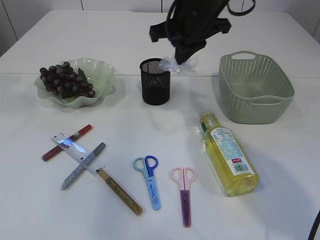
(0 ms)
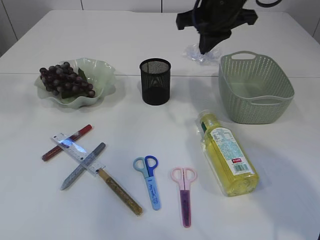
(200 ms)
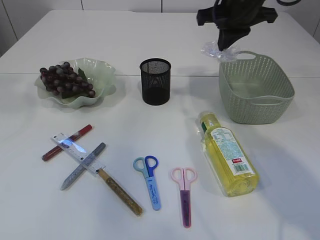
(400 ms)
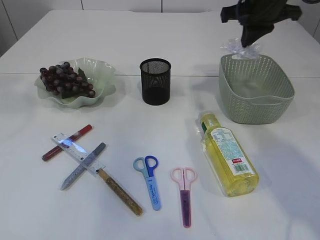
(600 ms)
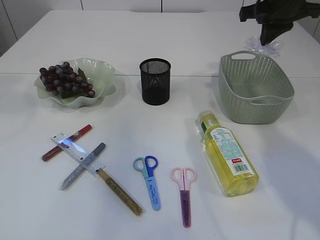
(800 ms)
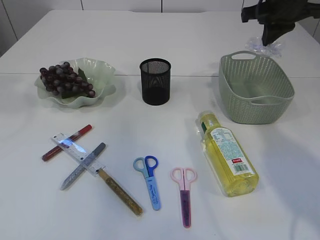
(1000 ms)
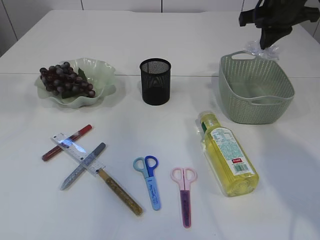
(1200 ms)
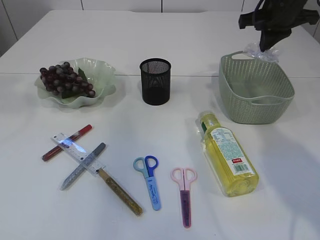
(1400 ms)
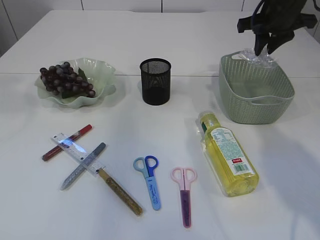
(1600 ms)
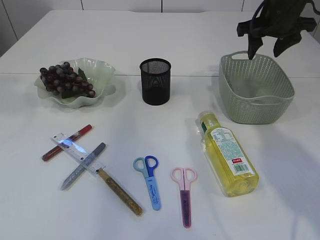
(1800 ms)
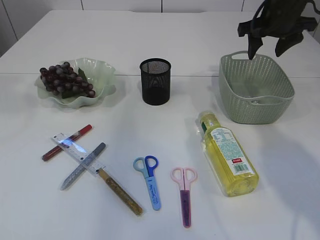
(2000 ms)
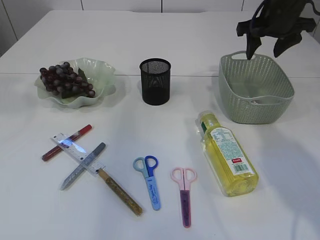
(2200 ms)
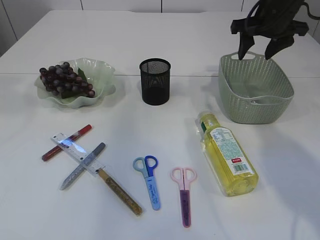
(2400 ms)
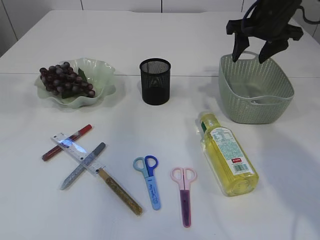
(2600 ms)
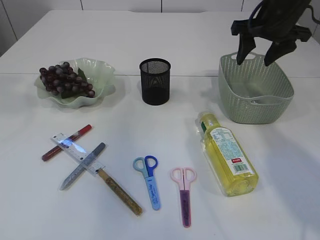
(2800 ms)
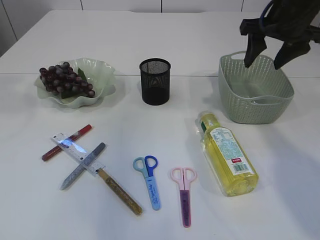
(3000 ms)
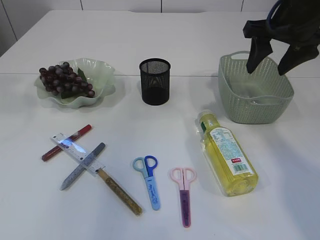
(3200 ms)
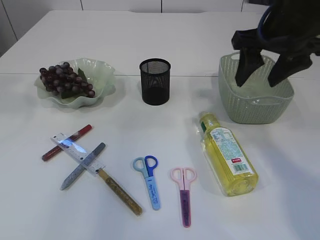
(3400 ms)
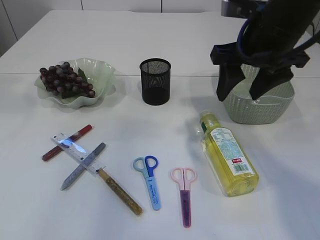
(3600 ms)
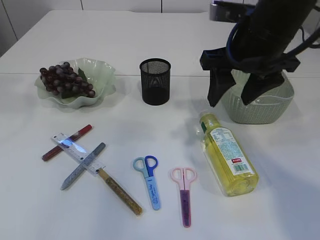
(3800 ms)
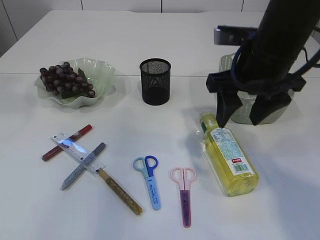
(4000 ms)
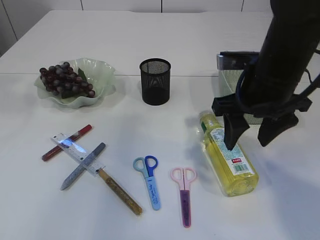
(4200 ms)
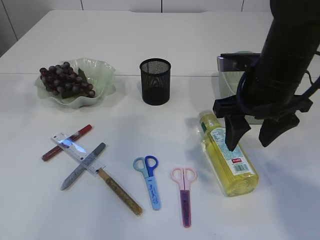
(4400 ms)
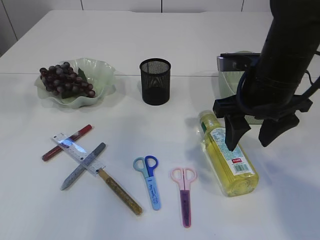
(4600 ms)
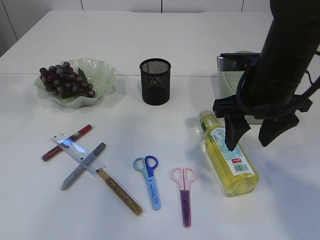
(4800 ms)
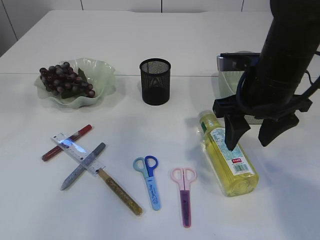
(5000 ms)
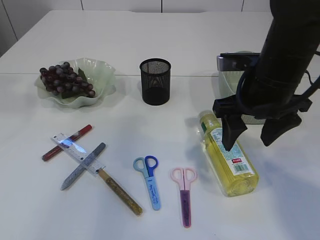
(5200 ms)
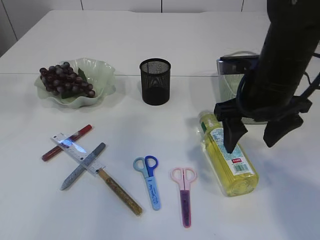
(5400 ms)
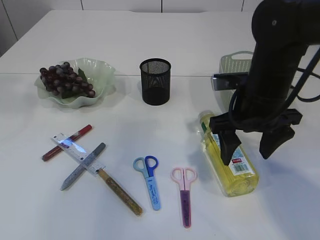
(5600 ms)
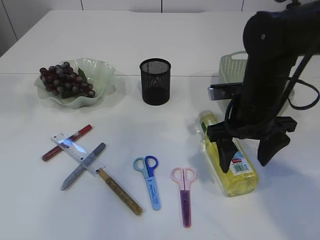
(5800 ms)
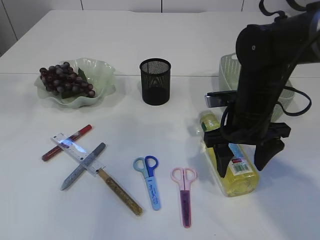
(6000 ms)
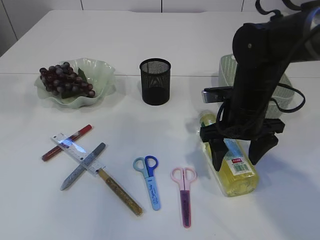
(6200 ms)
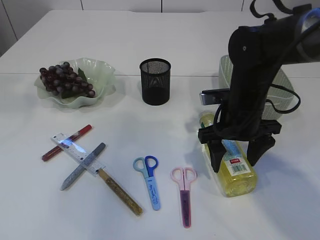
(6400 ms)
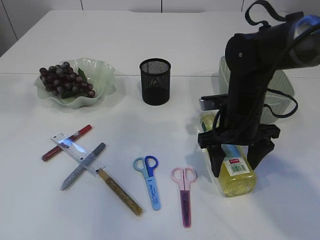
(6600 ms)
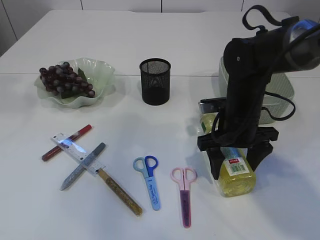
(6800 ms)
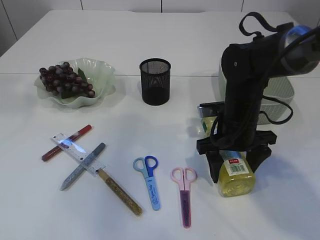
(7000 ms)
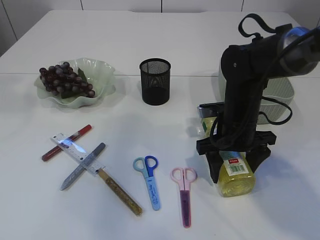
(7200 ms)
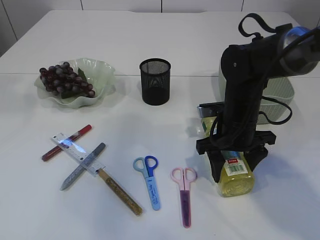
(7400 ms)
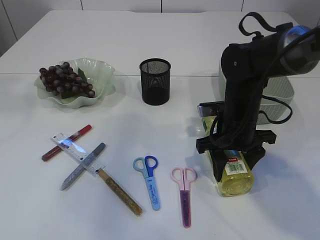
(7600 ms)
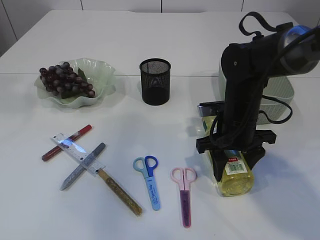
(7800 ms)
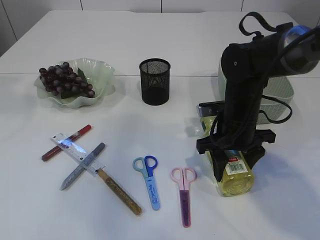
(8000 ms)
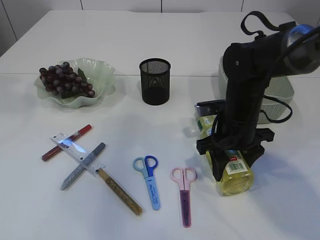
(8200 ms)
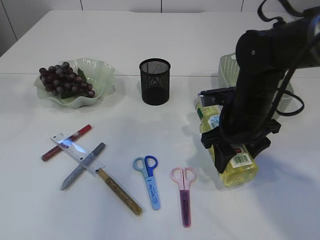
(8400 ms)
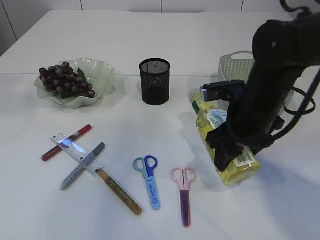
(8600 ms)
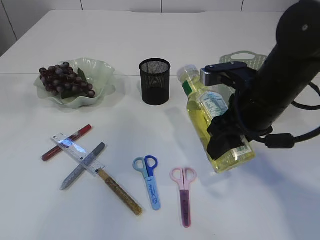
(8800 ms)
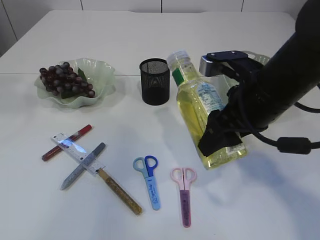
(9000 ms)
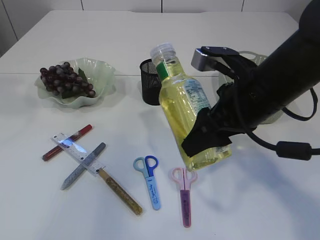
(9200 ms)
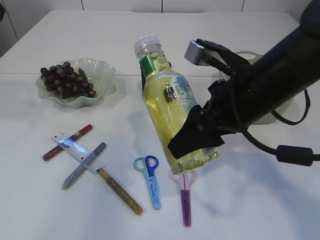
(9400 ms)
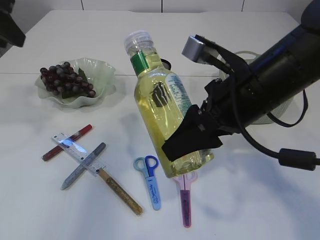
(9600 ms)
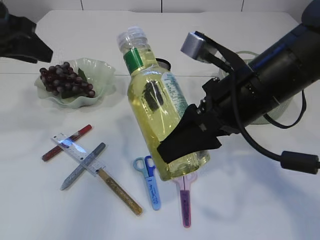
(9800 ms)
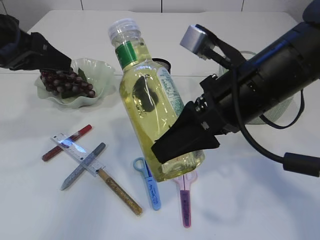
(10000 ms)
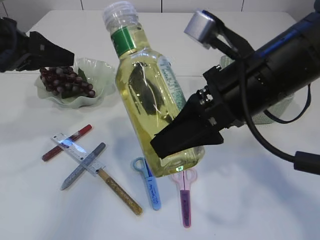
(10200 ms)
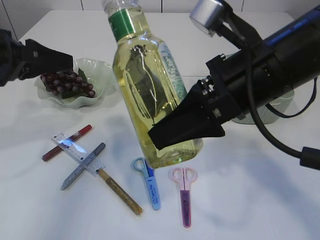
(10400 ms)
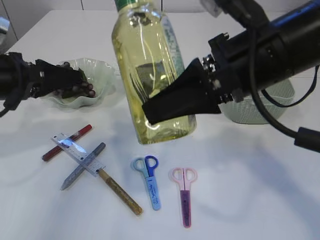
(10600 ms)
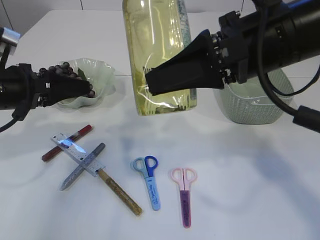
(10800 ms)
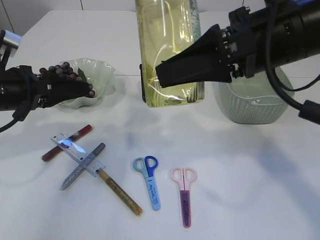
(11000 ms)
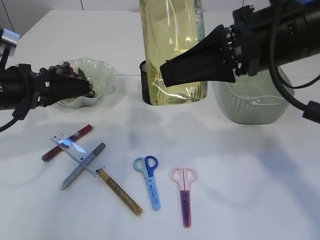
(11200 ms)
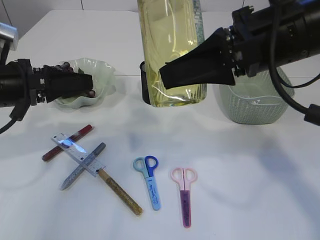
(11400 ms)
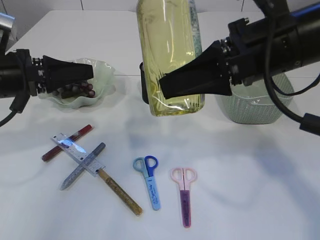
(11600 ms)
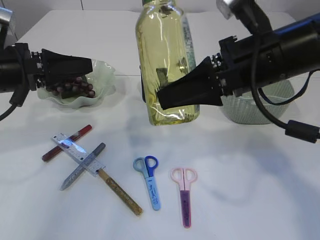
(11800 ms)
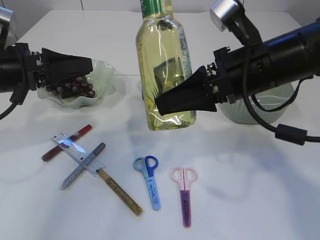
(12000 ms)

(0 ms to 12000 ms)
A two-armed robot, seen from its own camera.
Step, 0 ms - 2000 ms: Place the plastic in the basket.
Step, 2200 ms - 9000 ms: Pick up the bottle with the right arm.
0 ms - 1600 ms: The right gripper goes some 15 cm to the right.
1600 ms - 3000 ms: The right gripper moves backward, about 5 cm, and opens its fingers.
3000 ms - 4400 ms: The left gripper opens its fingers; the right gripper heads backward, to the left and downward, covering roughly 15 cm.
4400 ms - 6000 ms: The right gripper goes approximately 5 cm downward.
6000 ms - 7600 ms: The grippers stay close to where they were, moving slightly.
7600 ms - 9000 ms: The right gripper travels upward and backward by approximately 10 cm.
9000 ms - 10400 ms: The left gripper heads downward, covering roughly 20 cm, while the right gripper shifts roughly 5 cm upward.
10400 ms - 12000 ms: The right gripper travels forward by some 5 cm.

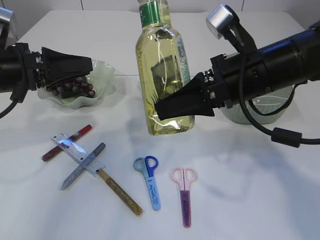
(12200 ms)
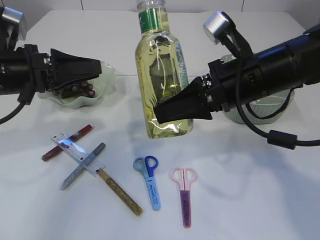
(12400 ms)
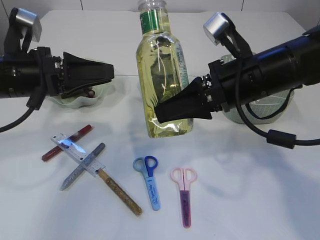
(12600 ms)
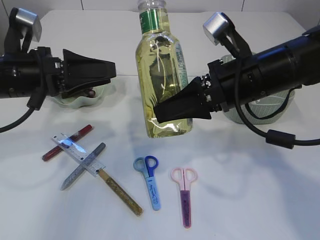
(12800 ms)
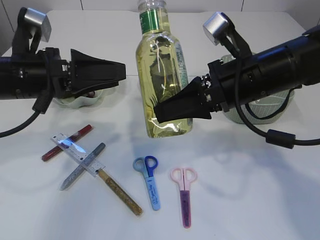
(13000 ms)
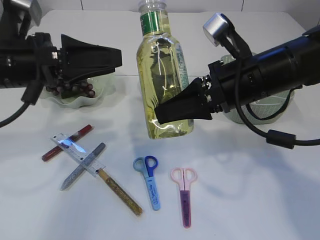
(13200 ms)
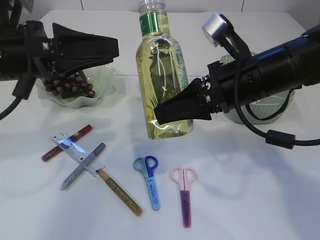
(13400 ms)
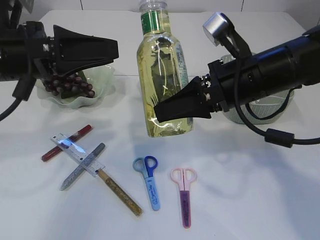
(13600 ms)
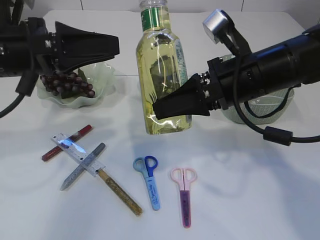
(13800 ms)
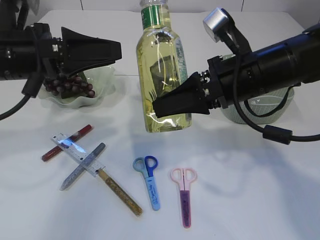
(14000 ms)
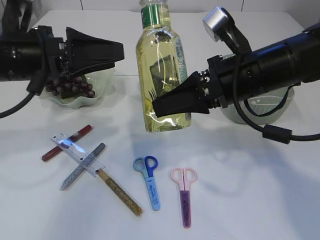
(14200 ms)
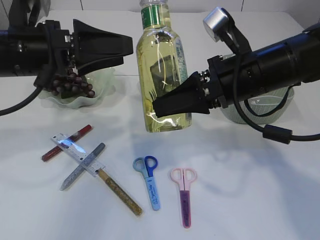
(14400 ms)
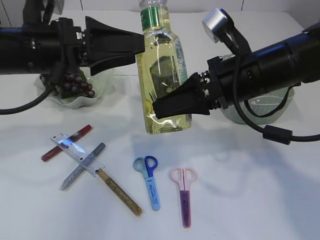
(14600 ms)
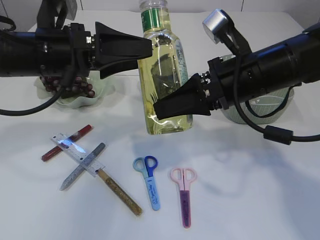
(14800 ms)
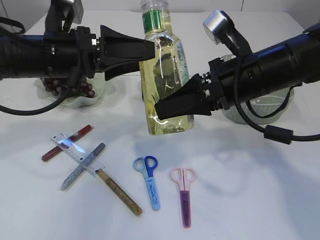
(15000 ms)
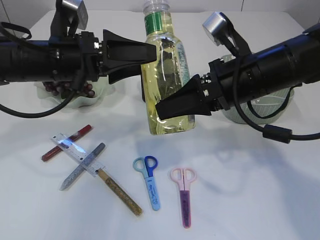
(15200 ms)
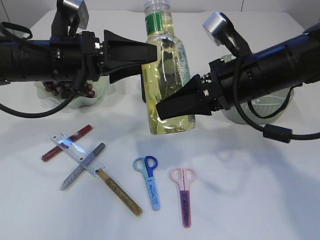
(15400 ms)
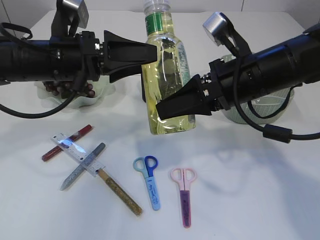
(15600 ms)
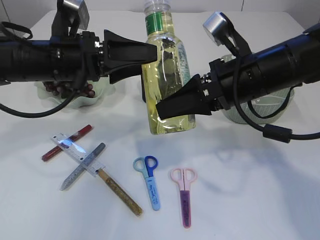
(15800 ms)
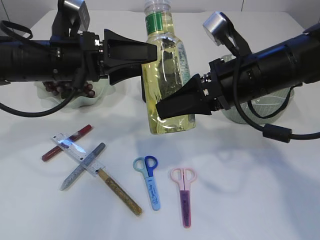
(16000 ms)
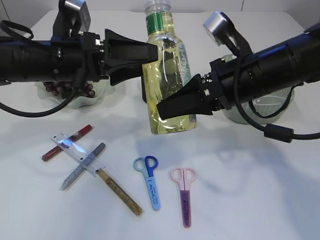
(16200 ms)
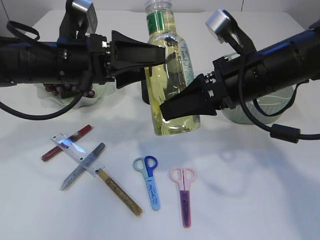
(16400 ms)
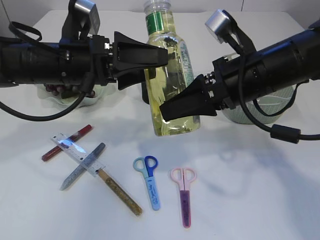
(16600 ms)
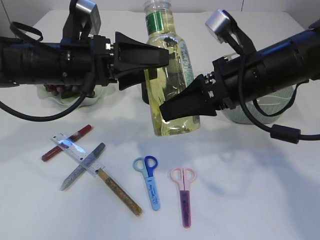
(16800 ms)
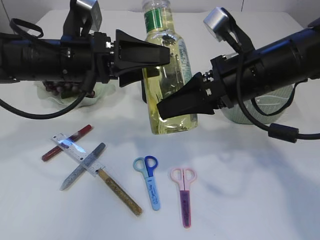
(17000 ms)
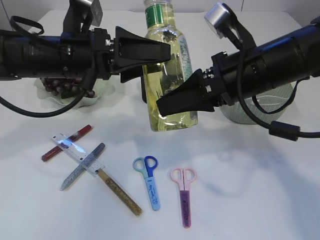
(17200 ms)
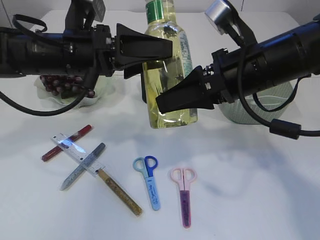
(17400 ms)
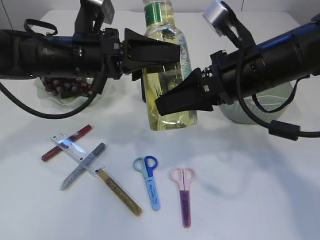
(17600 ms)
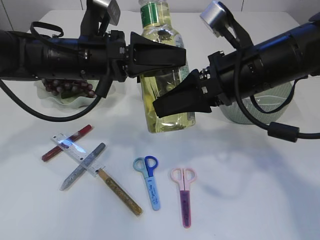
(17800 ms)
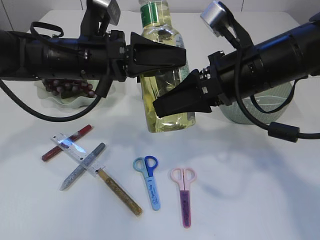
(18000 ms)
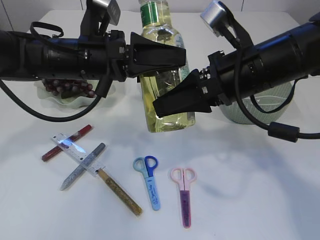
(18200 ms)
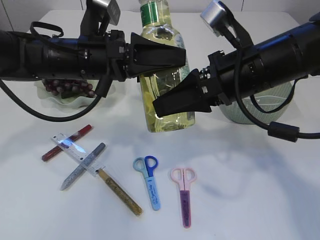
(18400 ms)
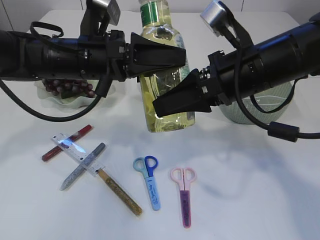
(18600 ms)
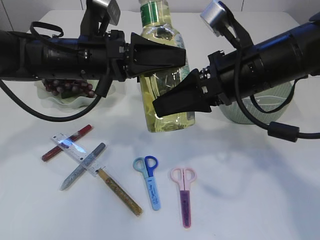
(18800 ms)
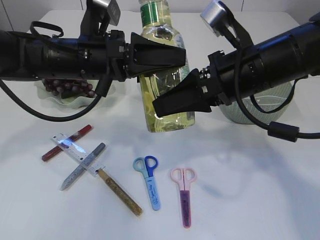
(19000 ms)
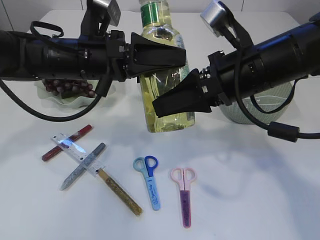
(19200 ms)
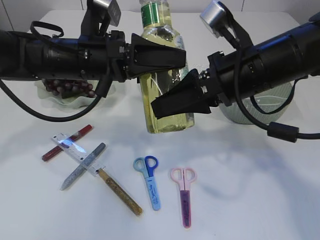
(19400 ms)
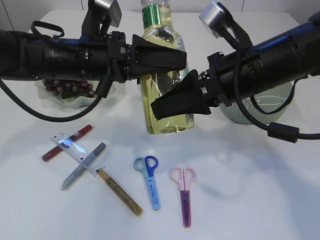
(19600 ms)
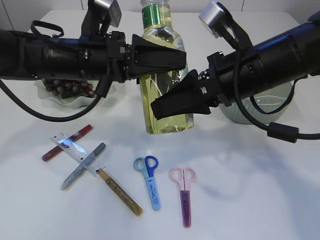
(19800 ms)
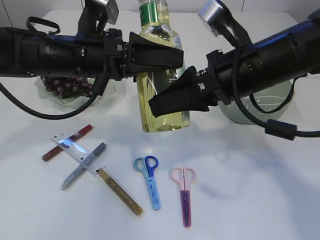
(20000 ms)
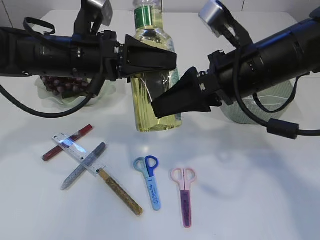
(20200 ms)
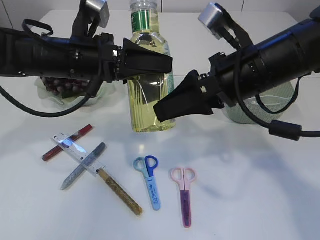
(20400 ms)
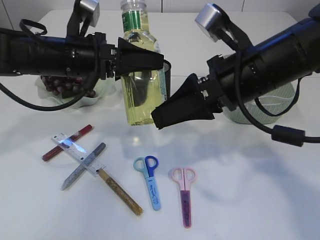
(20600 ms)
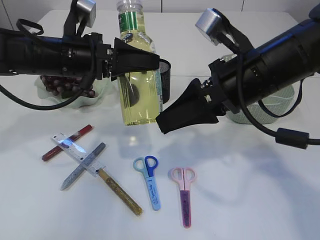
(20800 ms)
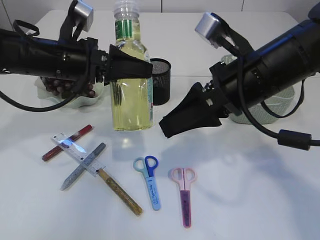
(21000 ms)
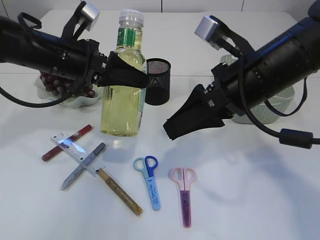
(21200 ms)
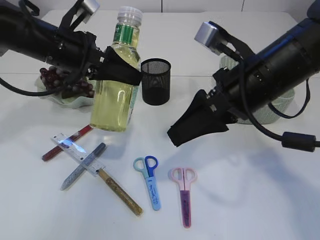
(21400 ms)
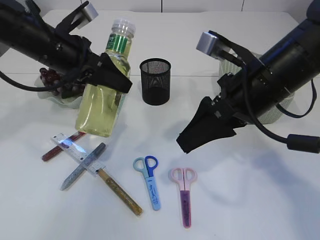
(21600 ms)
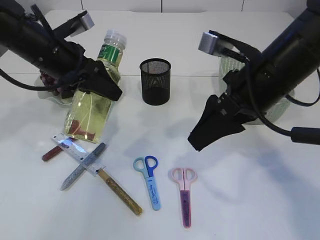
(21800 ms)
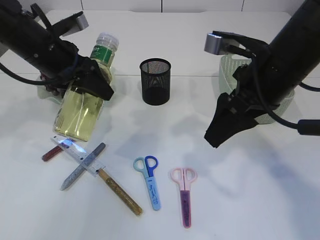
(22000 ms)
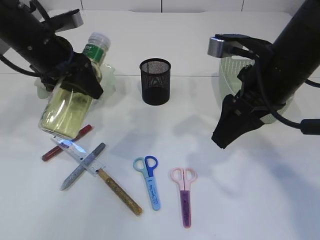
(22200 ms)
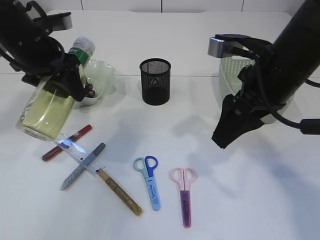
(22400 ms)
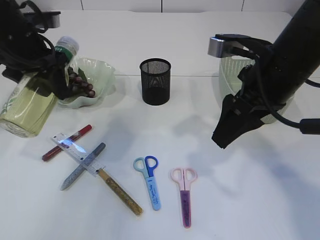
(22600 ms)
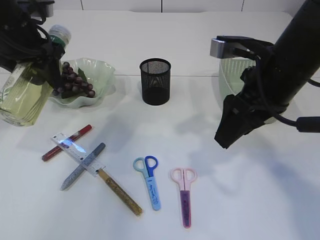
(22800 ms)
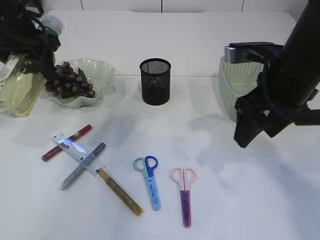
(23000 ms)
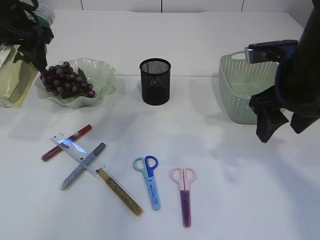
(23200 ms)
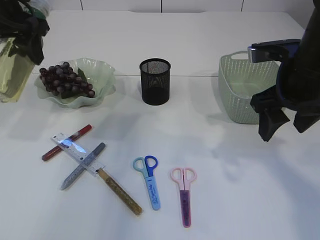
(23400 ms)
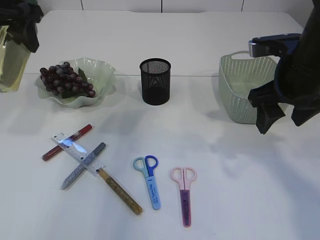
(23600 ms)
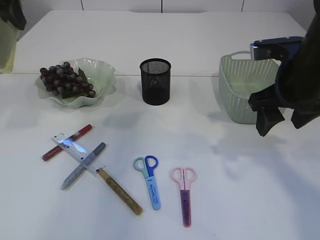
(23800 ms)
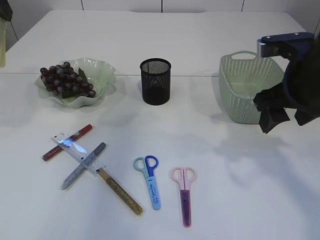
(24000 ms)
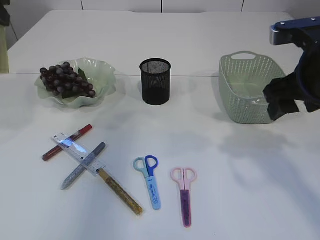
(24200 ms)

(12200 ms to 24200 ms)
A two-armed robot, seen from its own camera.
Step, 12200 ms - 21000 ms: transfer the bottle to the left arm.
12200 ms - 13800 ms: The left gripper moves roughly 5 cm, and opens up.
13800 ms - 15200 ms: The left gripper changes place by some 5 cm.
15200 ms - 18200 ms: The grippers stay close to where they were, moving slightly.
18200 ms - 19800 ms: Neither gripper changes place.
19800 ms - 21200 ms: The left gripper shifts by some 5 cm.
21200 ms - 22600 ms: The left gripper moves to the left, about 5 cm.
22600 ms - 24200 ms: The left gripper moves upward and to the left, roughly 10 cm, while the right gripper goes about 5 cm to the right.
